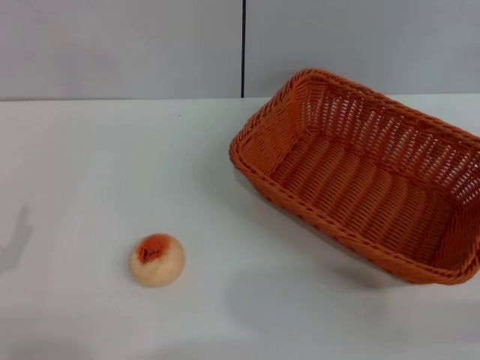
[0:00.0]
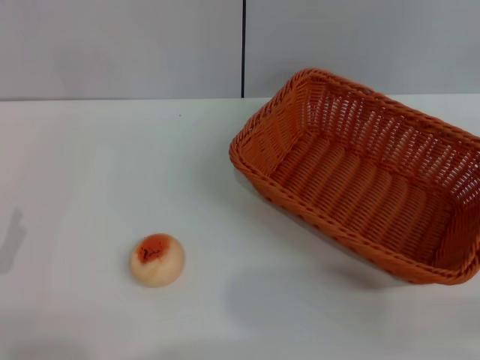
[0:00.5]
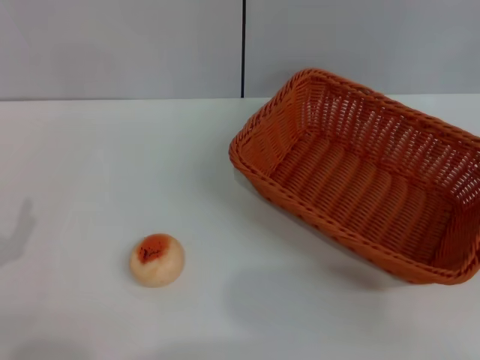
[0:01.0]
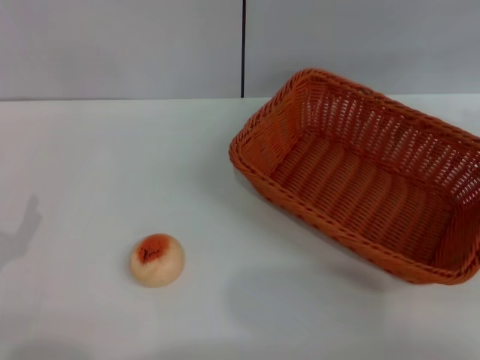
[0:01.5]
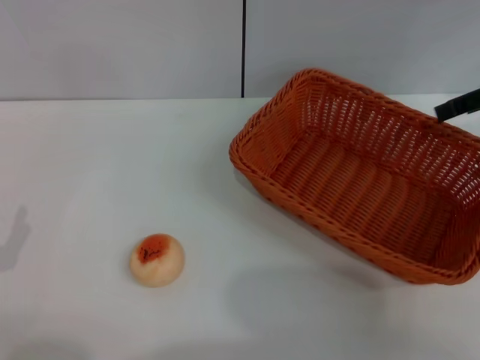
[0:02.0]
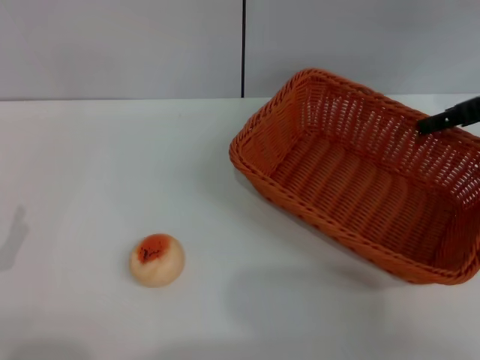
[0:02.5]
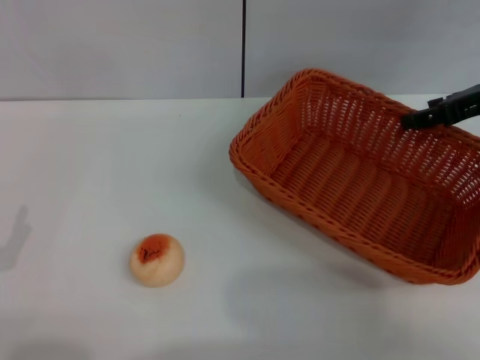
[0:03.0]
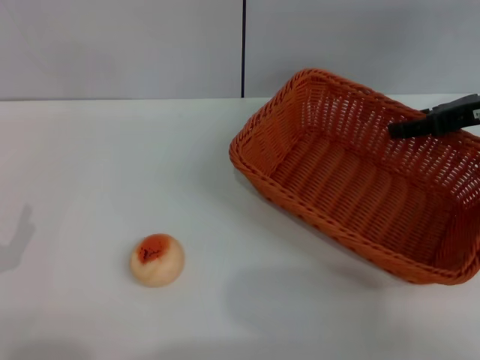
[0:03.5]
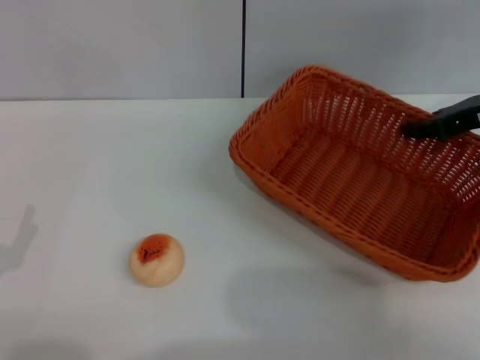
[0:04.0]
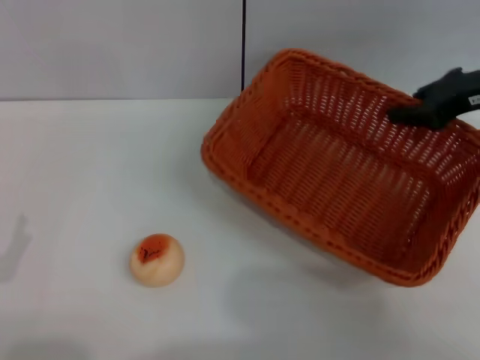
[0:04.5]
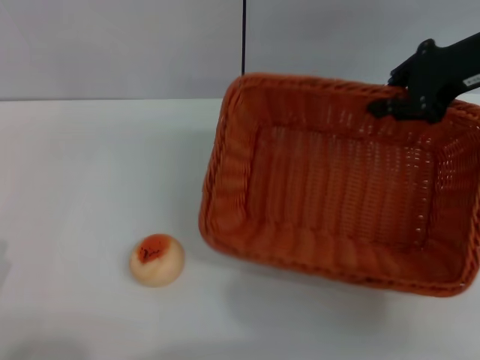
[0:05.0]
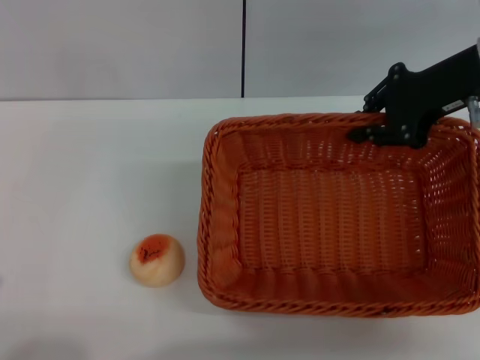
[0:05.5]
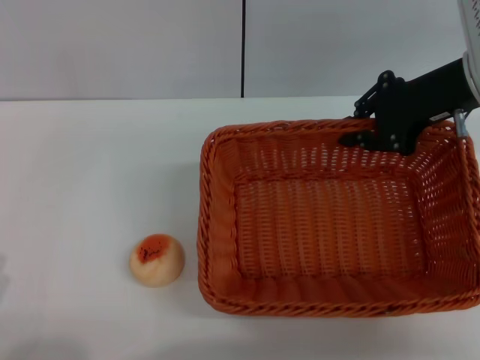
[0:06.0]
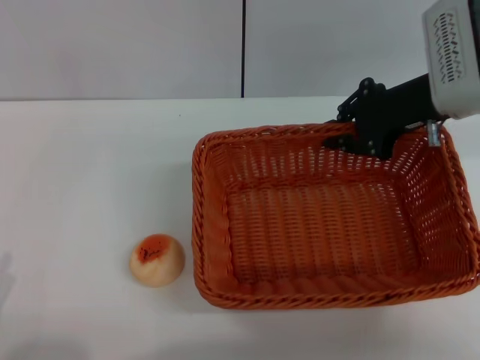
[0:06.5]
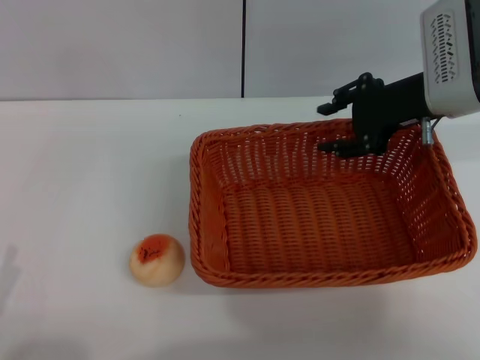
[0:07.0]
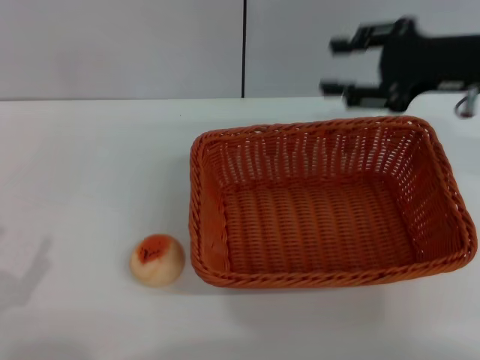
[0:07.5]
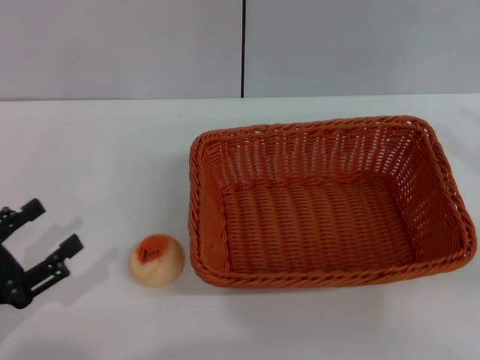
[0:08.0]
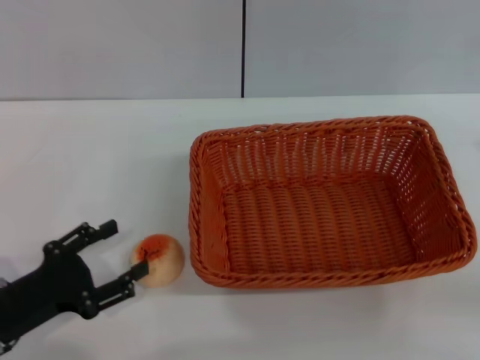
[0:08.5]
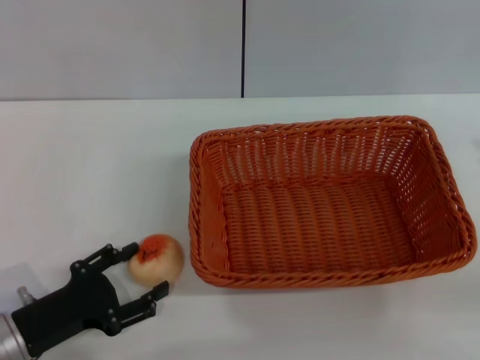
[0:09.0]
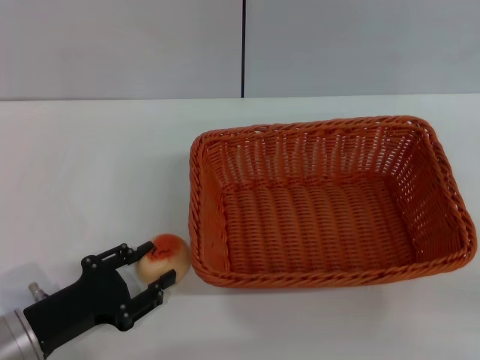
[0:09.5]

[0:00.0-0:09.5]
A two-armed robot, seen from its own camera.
Step, 0:00.0 to 0:07.0: Move the basket to the center of view with the right gripper.
0:00.0 to 0:02.0: The right gripper shifts about 25 cm forward and upward.
0:02.0 to 0:04.0: The right gripper heads downward, covering about 5 cm.
0:04.0 to 0:05.5: The right gripper moves to the left and upward, about 10 cm, and closes up. Meanwhile the left gripper travels backward by about 5 cm.
0:05.5 to 0:07.5: The right gripper opens up.
0:07.5 to 0:09.5: The left gripper travels forward and to the right by approximately 10 cm. Meanwhile the right gripper heads backward, to the right and downward, covering approximately 20 cm.

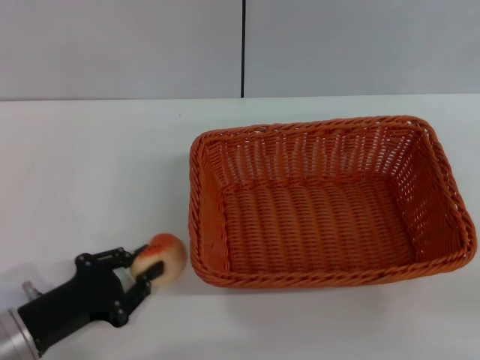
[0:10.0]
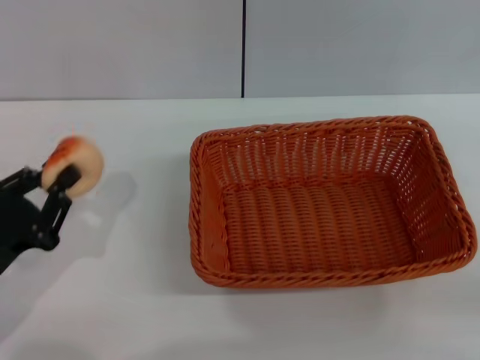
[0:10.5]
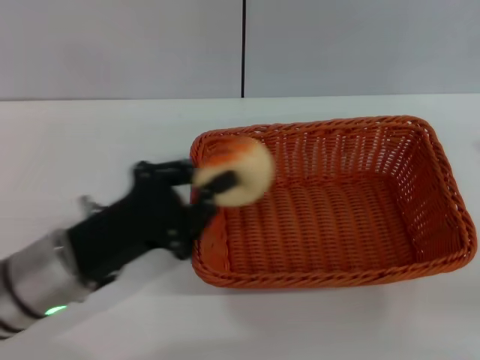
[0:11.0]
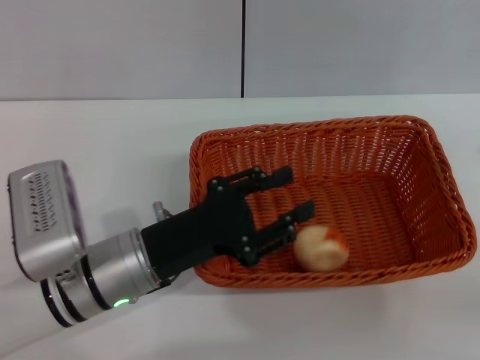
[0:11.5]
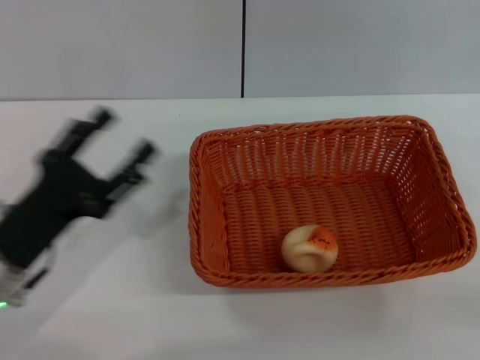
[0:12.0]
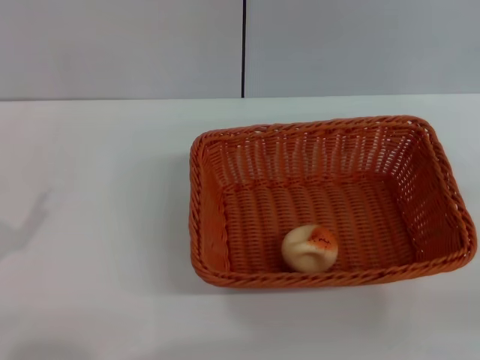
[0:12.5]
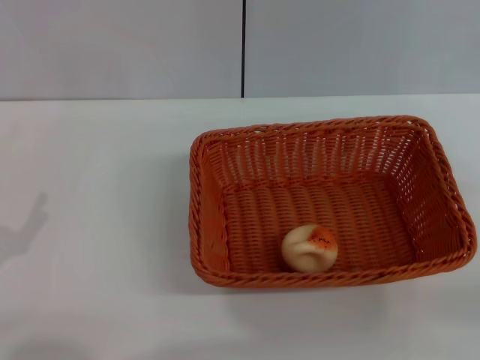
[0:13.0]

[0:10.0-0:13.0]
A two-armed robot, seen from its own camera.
Step, 0:10.5 to 0:11.5: Place the egg yolk pastry into the basket with the left gripper.
0:10.0 to 0:11.5: The left gripper heads to the right, forward and upward, covering roughly 15 cm.
0:11.5 to 0:13.0: The left gripper moves to the left and backward, roughly 20 cm, and opens its fingers.

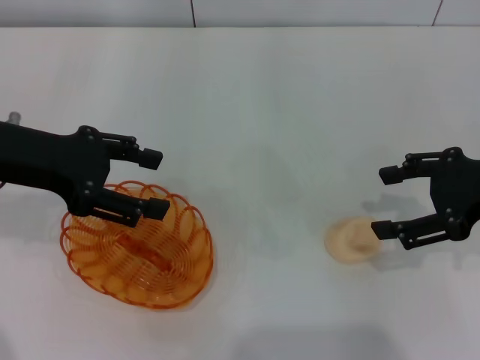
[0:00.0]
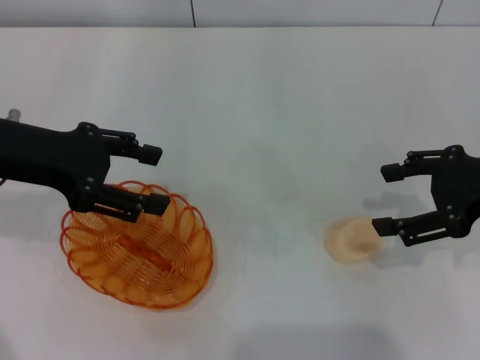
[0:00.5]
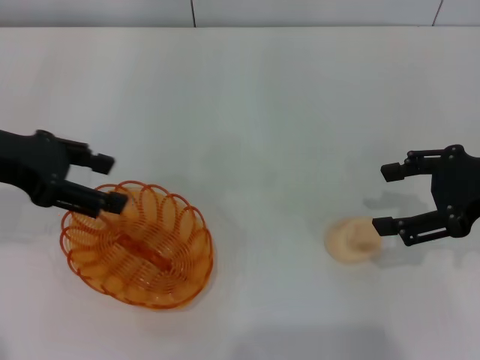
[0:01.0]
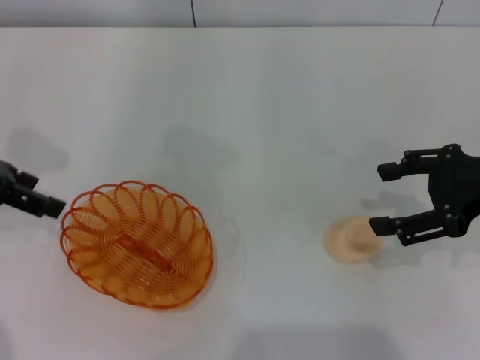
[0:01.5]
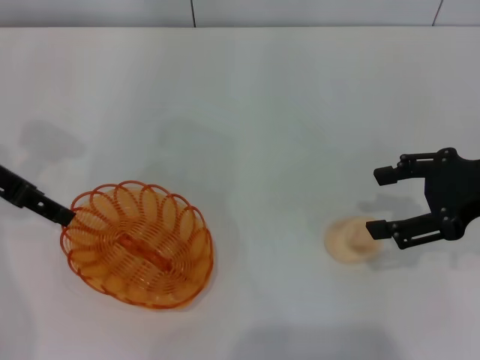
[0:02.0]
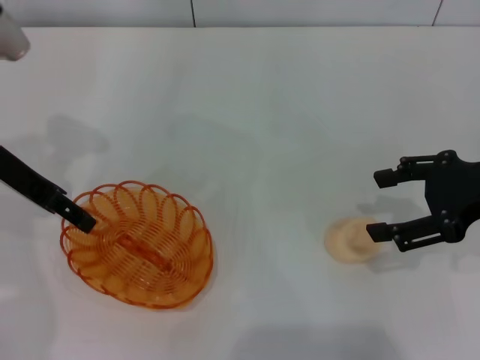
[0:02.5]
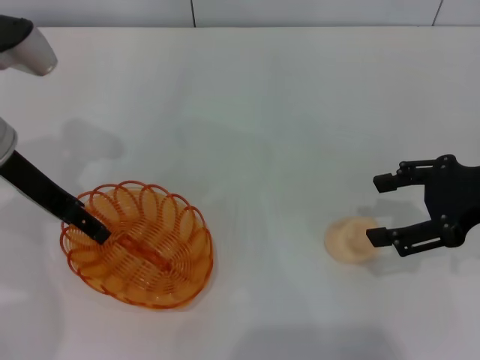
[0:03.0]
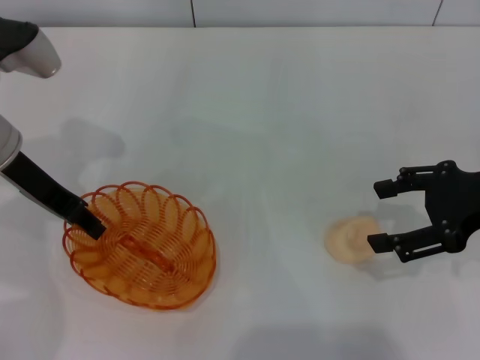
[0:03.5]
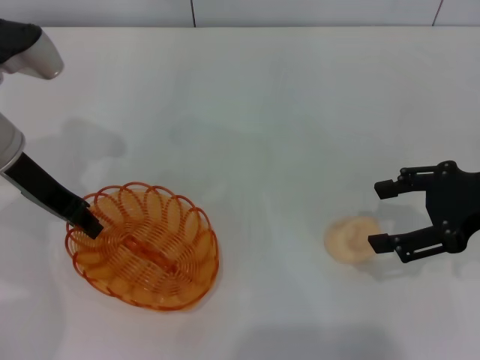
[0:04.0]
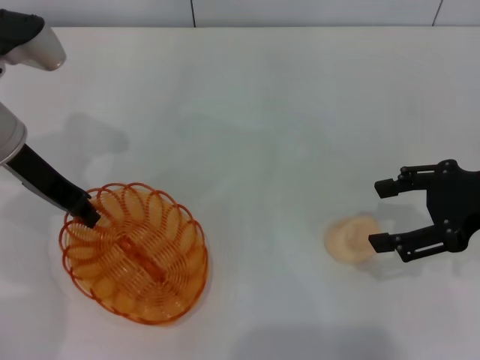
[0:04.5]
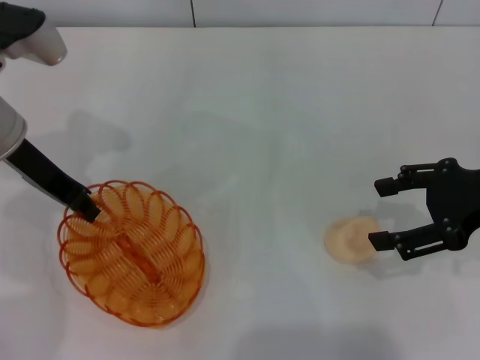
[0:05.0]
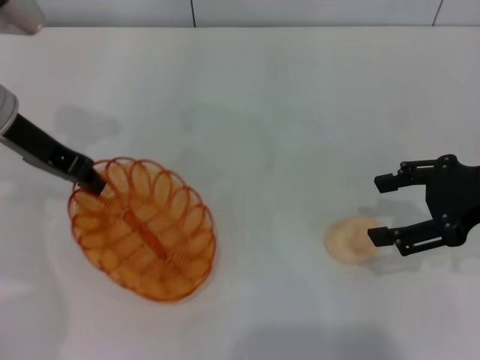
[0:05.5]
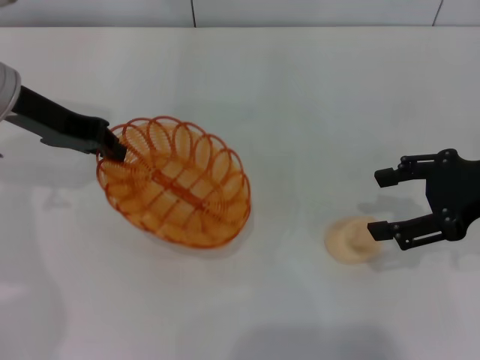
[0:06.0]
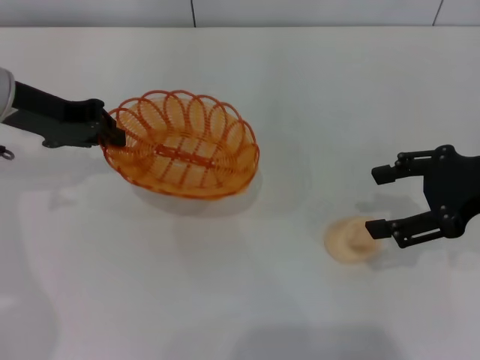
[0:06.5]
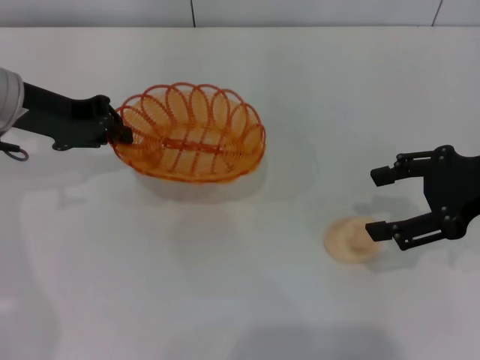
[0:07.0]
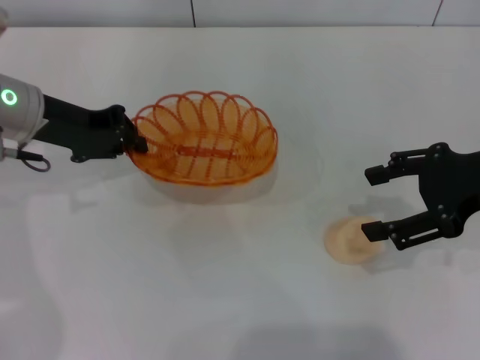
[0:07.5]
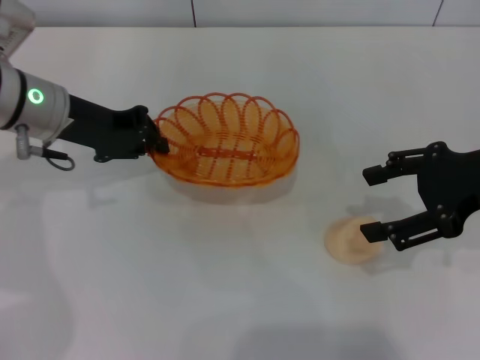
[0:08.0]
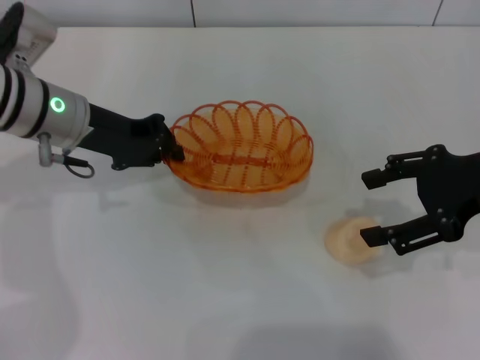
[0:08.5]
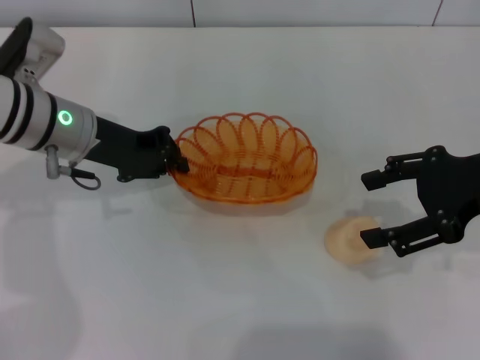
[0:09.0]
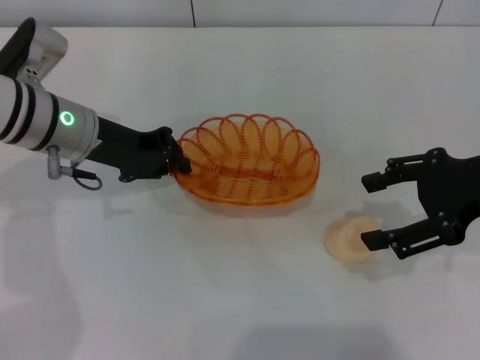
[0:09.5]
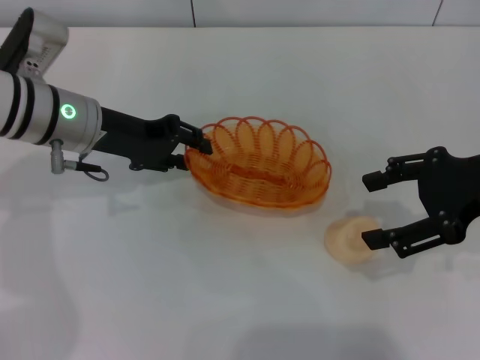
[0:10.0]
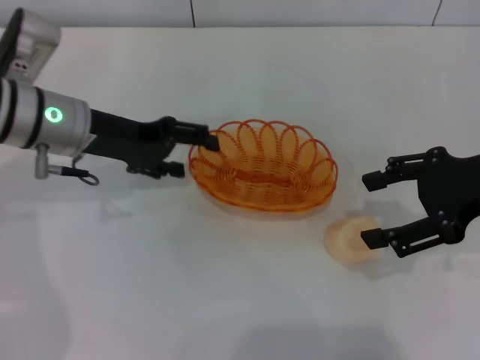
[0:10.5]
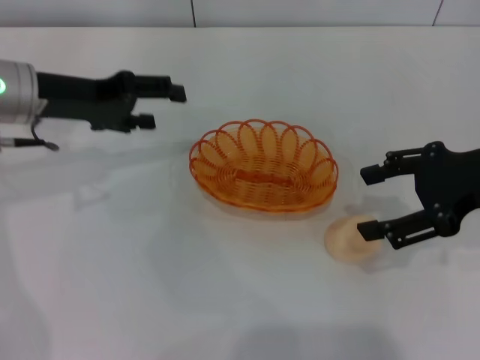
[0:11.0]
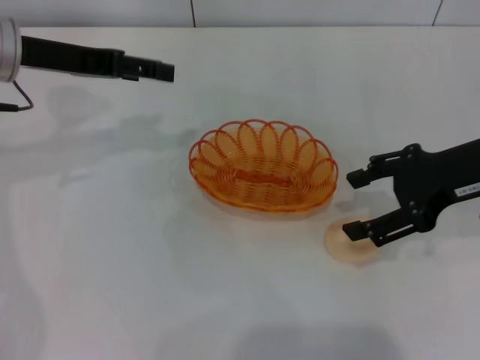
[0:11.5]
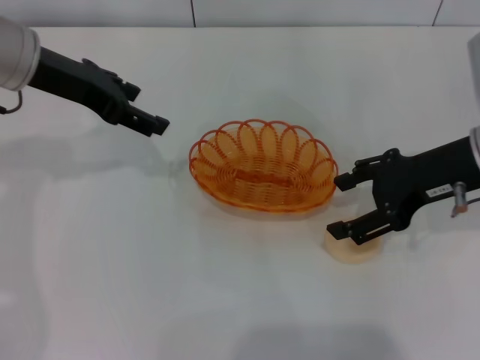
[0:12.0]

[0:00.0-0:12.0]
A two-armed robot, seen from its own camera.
Step, 0:00.0 to 0:05.5: Pick up the basket with the left gripper.
Step, 0:06.0 to 0:10.5: Place the basket in the center of view with the left gripper.
0:00.0 to 0:02.0: The left gripper ends up roughly 5 cm from where it was.
0:02.0 to 0:04.0: The left gripper heads to the right, covering some 5 cm, and closes up.
0:06.0 to 0:08.0: The left gripper ends up some 5 cm from where it was.
0:08.0 to 0:10.0: There are only small adjustments of the grippers.
0:10.0 to 0:12.0: The left gripper moves upward, approximately 10 cm, and opens its fingers, while the right gripper ends up approximately 5 cm from where it was.

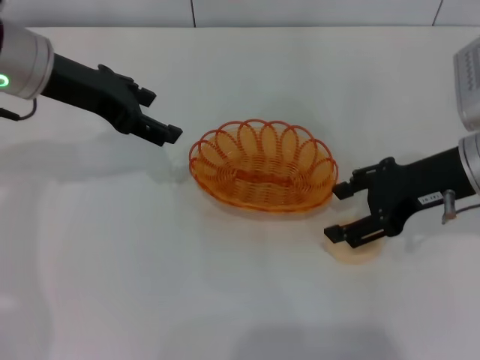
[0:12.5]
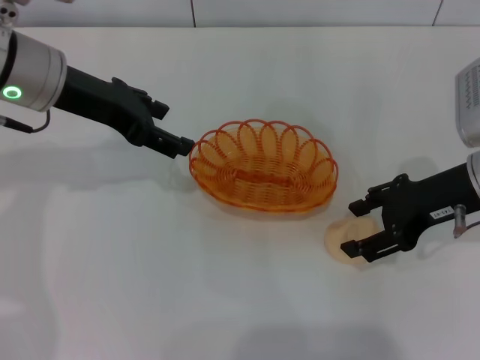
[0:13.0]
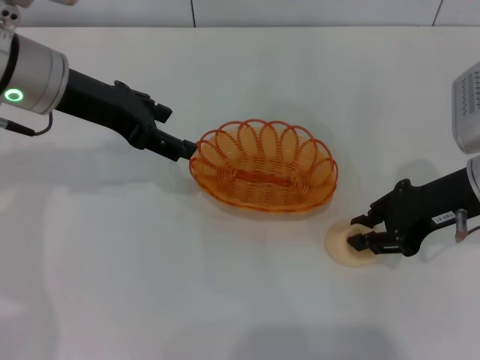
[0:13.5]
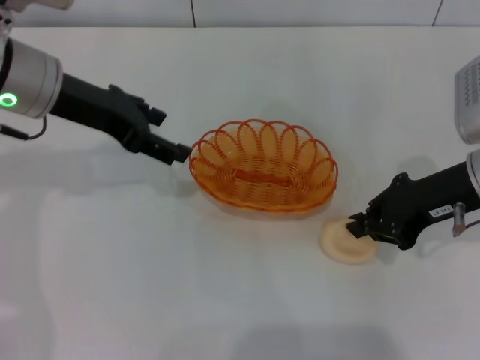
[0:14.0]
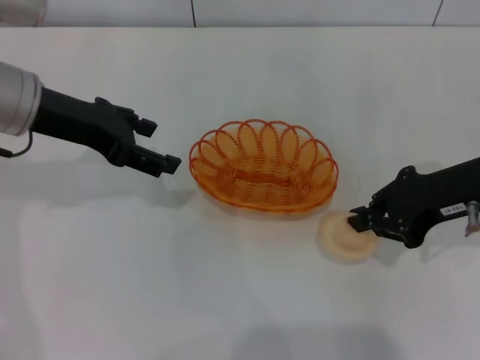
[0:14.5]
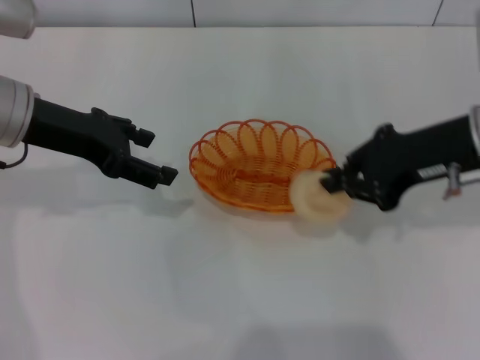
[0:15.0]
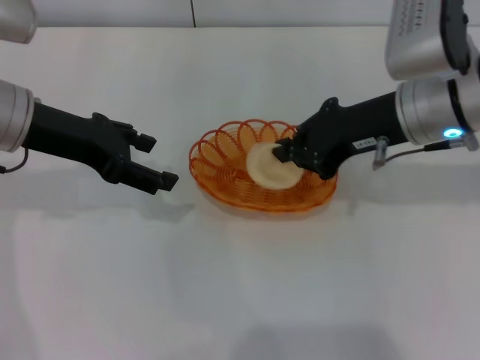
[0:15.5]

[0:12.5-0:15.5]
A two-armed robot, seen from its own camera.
Step, 0:12.5 to 0:14.5: Pick up the egg yolk pastry with the right gripper.
0:12.5 to 0:14.0: The right gripper closes.
0:14.0 to 0:15.5: The right gripper heads to the left, covering roughly 5 cm.
